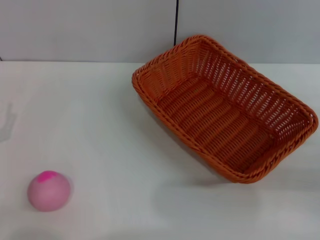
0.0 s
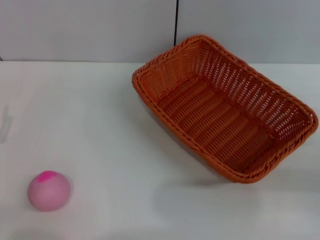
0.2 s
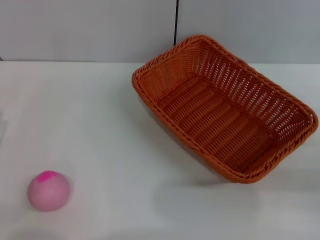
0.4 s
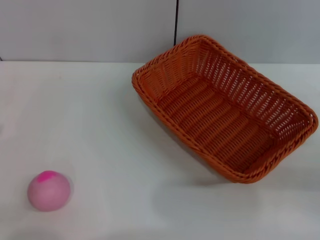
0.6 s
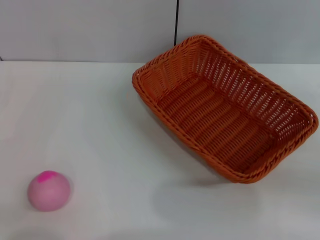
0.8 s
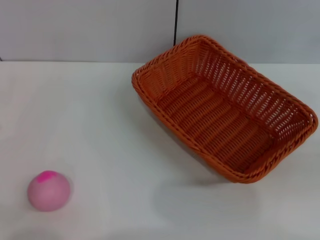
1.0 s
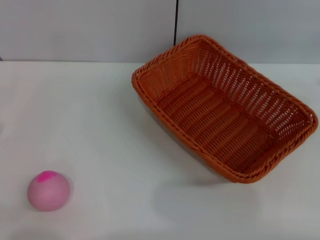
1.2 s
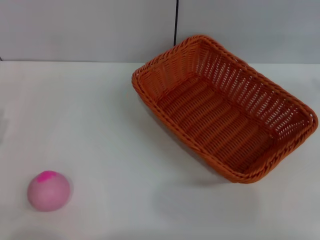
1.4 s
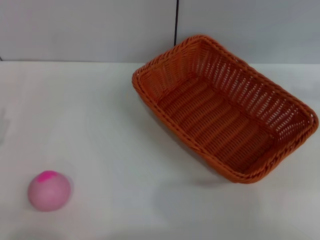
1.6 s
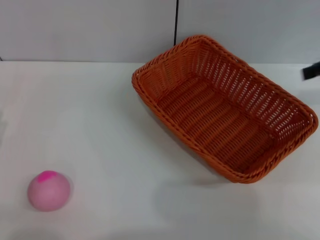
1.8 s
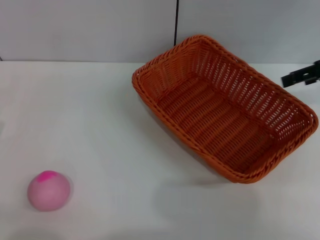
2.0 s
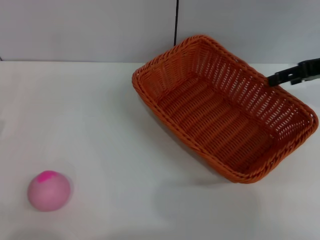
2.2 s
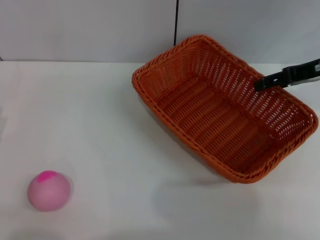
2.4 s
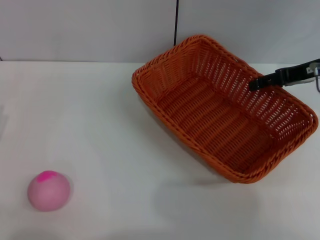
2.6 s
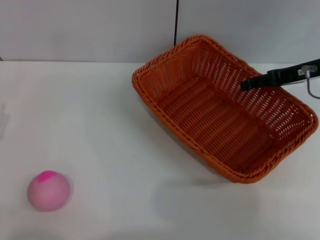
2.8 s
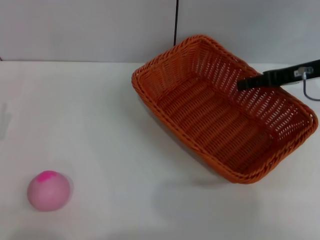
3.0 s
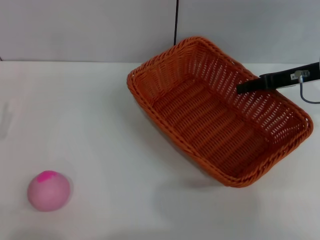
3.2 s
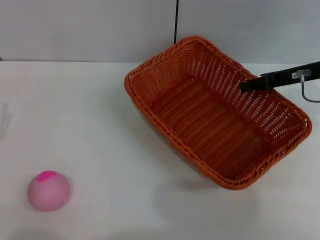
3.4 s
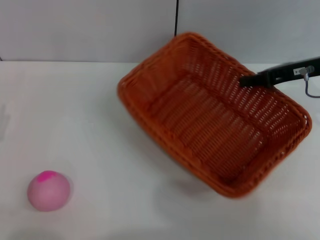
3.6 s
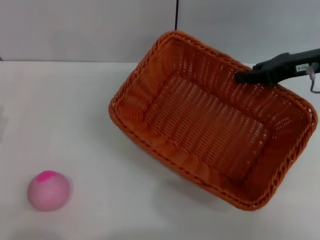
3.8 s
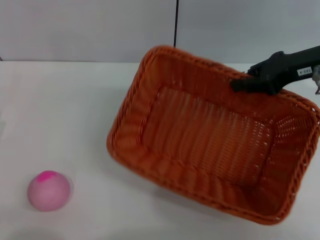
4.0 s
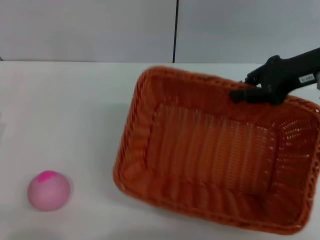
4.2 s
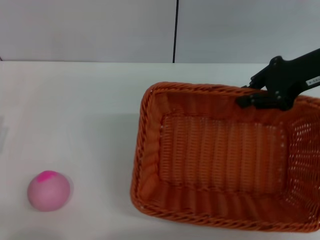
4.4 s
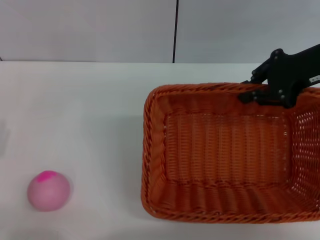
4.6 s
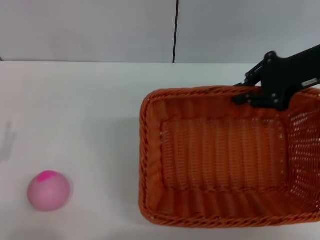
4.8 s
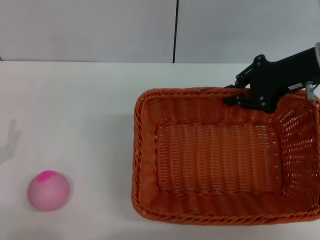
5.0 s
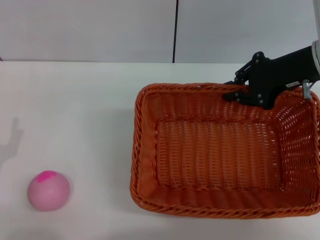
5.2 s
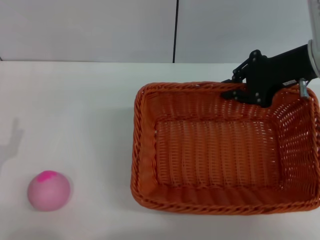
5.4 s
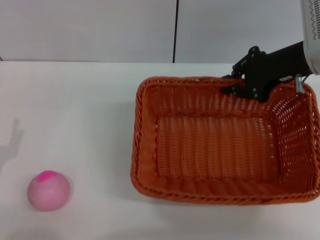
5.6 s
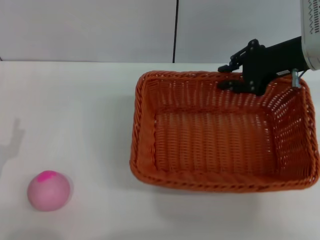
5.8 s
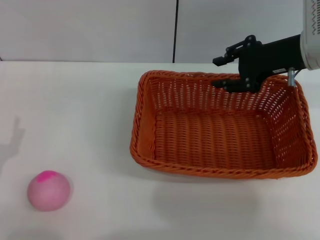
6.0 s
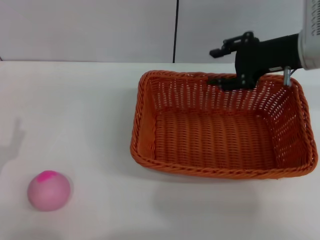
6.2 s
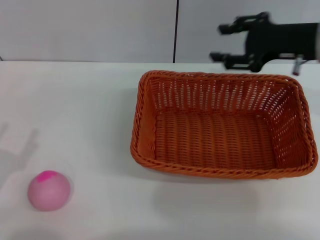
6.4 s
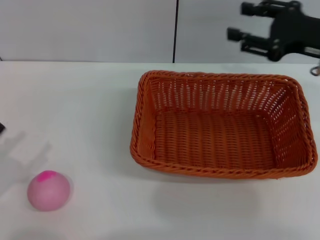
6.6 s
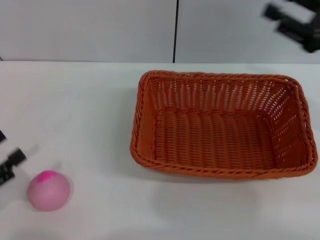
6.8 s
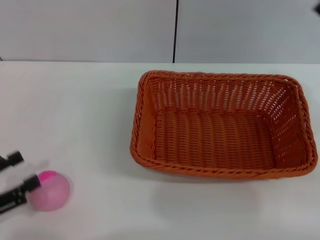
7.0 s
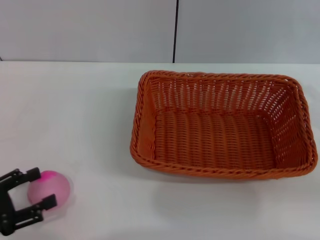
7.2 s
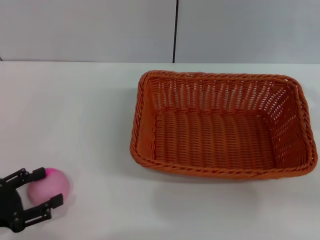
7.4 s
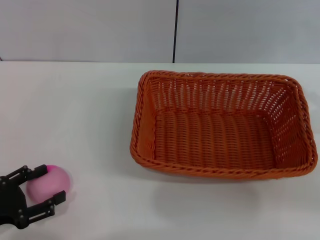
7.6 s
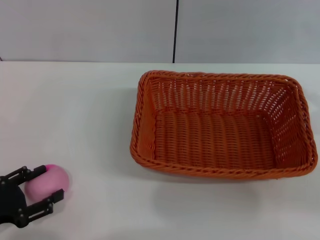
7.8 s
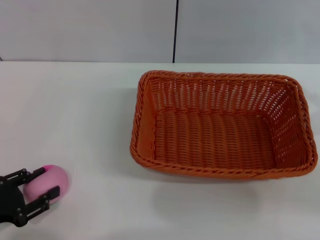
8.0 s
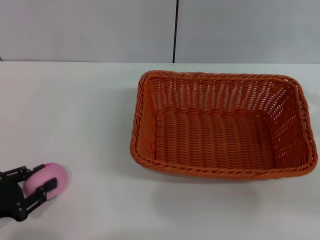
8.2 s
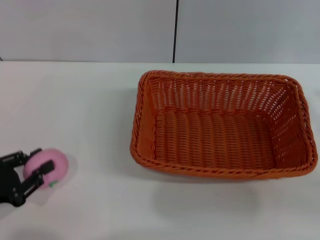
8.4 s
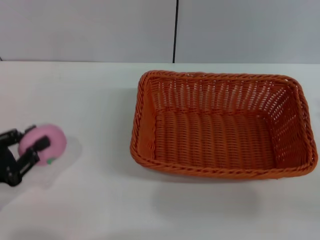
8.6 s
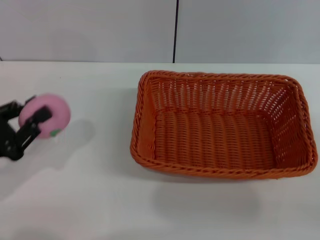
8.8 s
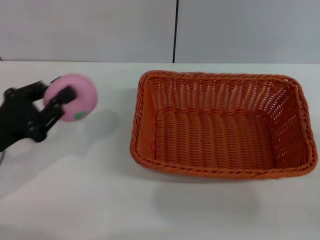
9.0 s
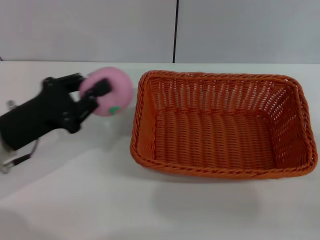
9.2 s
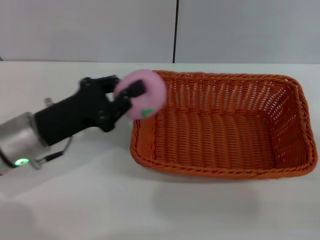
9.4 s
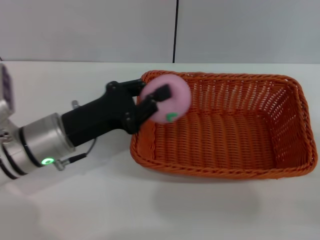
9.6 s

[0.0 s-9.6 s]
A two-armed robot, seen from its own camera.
Step, 0.0 to 3.4 s: Pick up the light basket with the right gripper.
Step, 3.6 to 6.2 s: Place the light basket in the center of view with the right gripper.
Step, 6.4 to 8.8 s: Pick up the peach with the left gripper.
0.0 to 1.6 s: The right gripper heads upward and forward, covering about 20 cm.
1.6 to 3.2 s: The right gripper is displaced to the left and downward by roughly 15 cm.
3.2 to 4.8 s: The right gripper shifts some 5 cm upward, and closes.
4.8 to 6.4 s: The right gripper opens its fingers.
6.4 to 8.0 s: The right gripper heads backward, to the right and downward, covering approximately 20 cm.
8.0 to 9.6 s: The left gripper goes about 20 cm to the right and forward, and closes its fingers; the right gripper is displaced downward by approximately 5 cm.

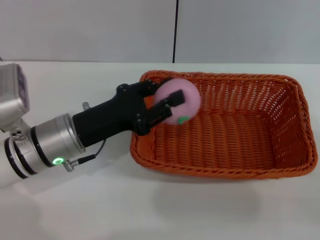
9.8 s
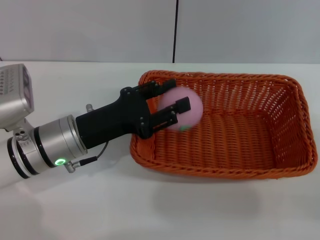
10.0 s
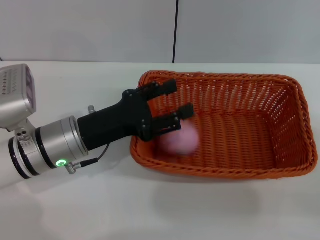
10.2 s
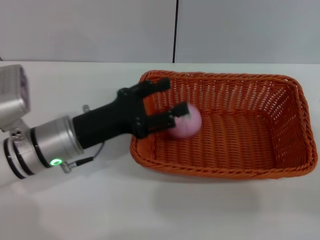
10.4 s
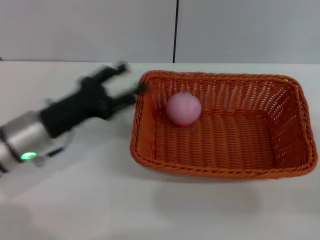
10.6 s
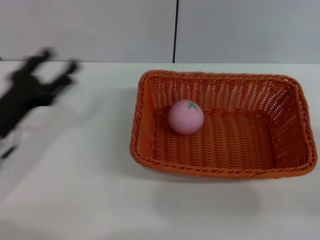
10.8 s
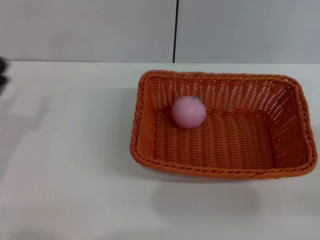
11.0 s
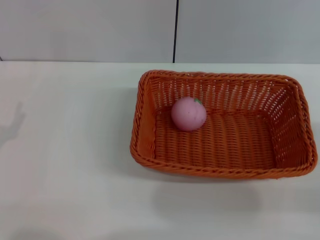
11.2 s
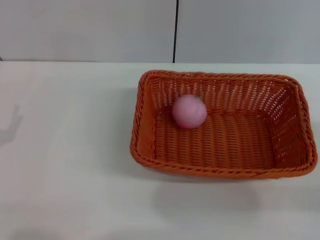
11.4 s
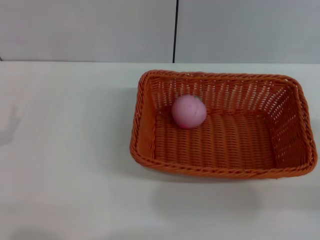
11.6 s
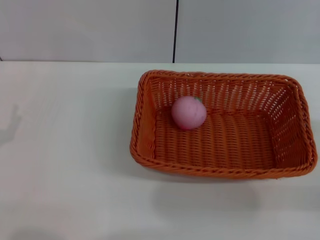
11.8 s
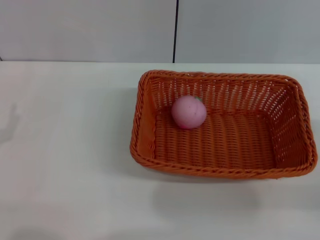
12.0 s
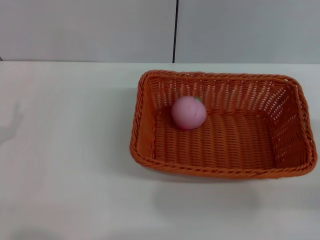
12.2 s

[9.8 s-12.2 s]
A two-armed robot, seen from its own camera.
9.8 to 11.0 s: The left gripper moves to the left and backward, roughly 15 cm, and opens.
